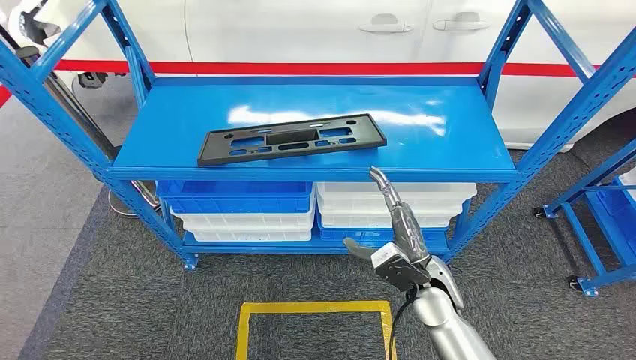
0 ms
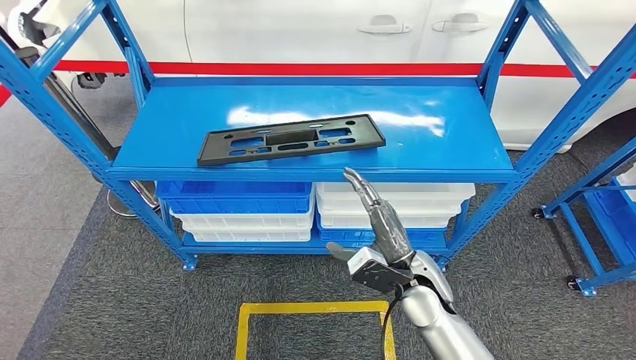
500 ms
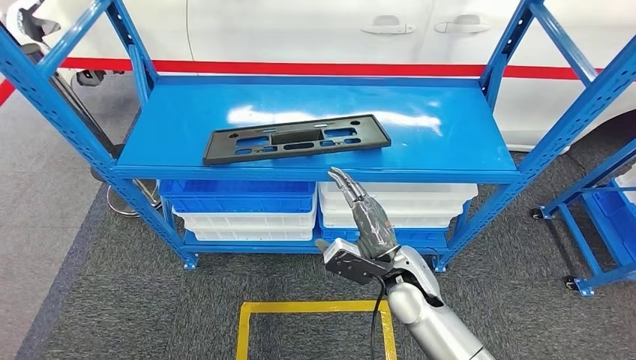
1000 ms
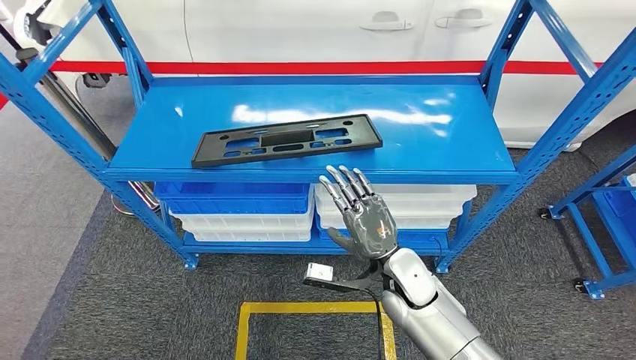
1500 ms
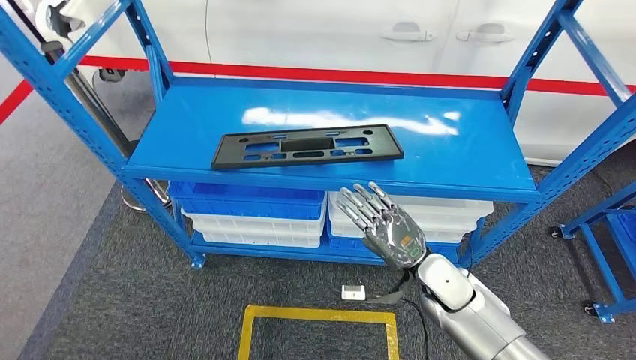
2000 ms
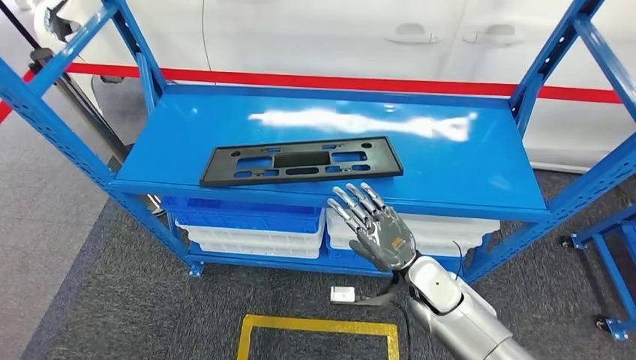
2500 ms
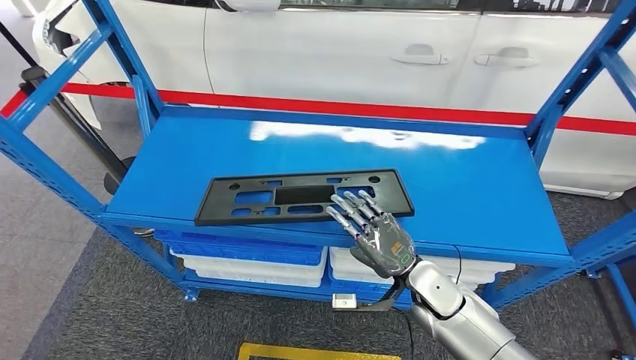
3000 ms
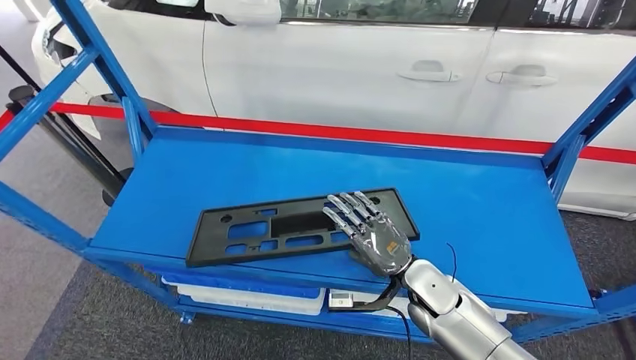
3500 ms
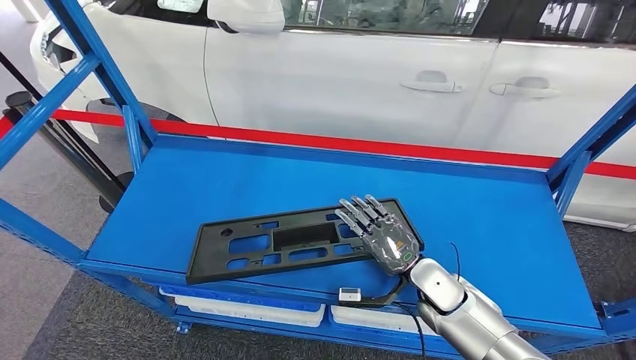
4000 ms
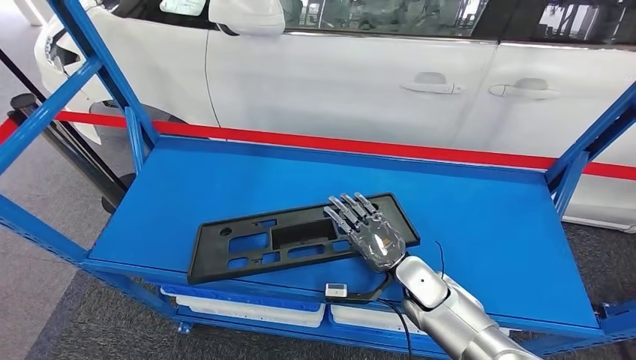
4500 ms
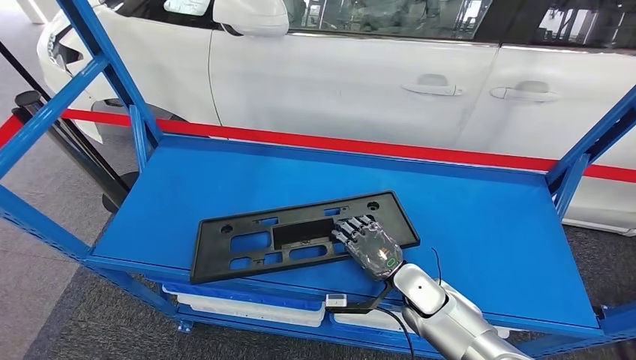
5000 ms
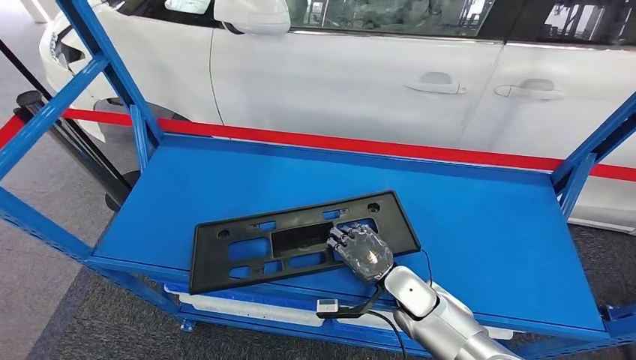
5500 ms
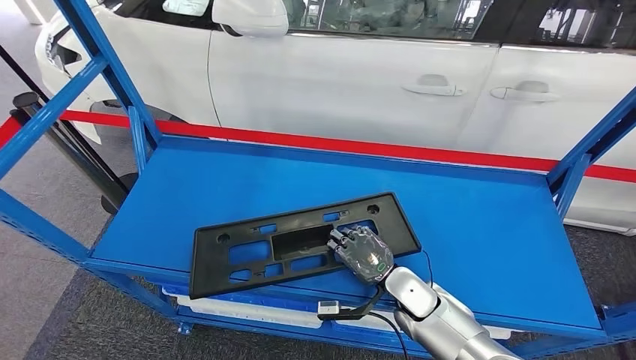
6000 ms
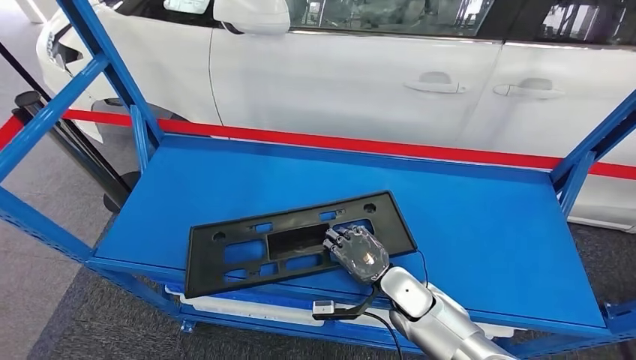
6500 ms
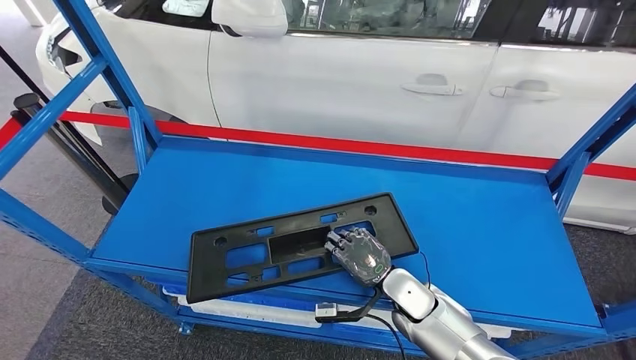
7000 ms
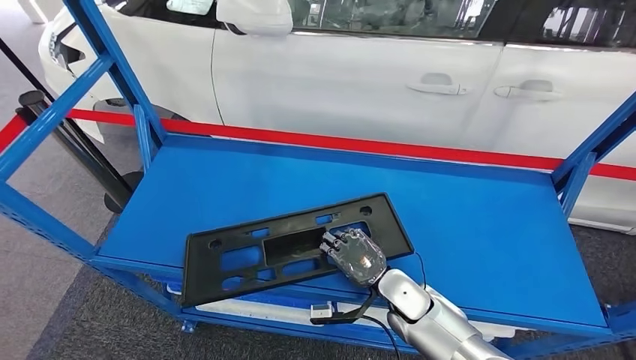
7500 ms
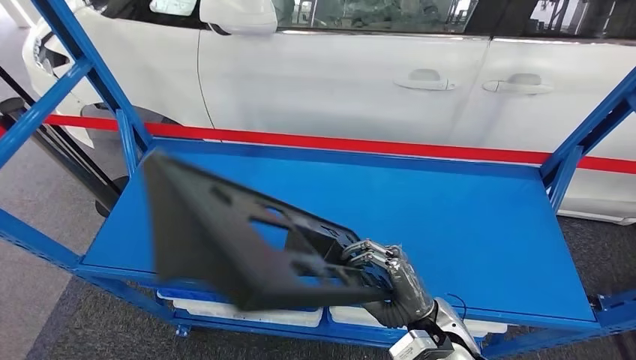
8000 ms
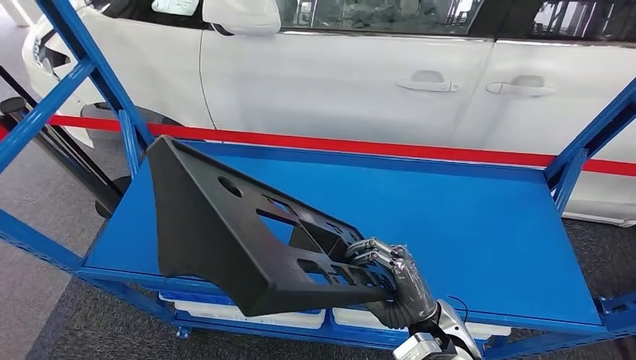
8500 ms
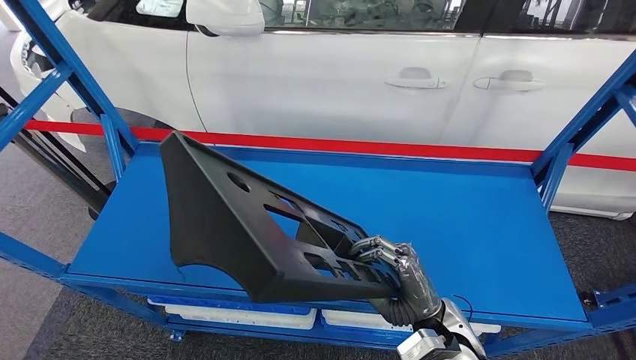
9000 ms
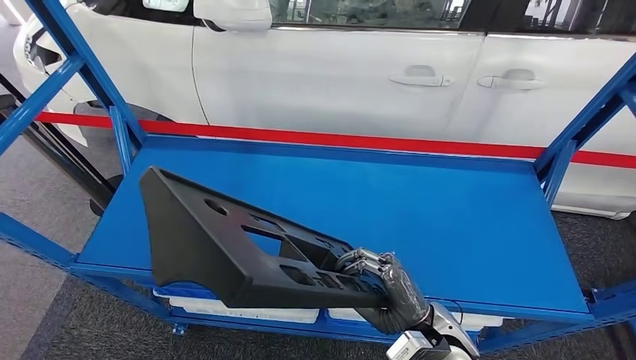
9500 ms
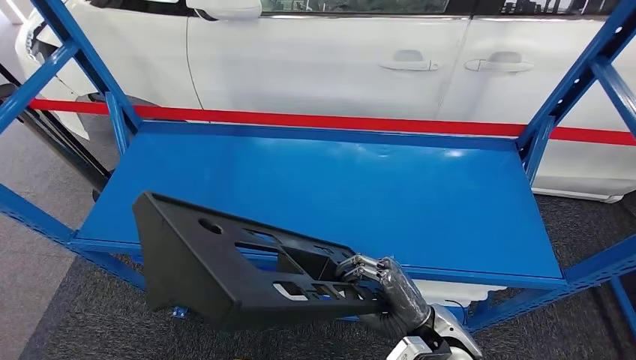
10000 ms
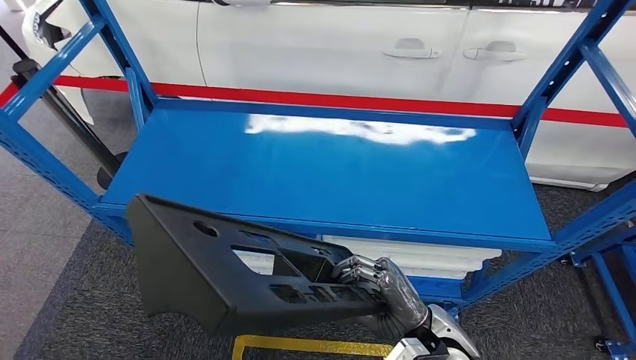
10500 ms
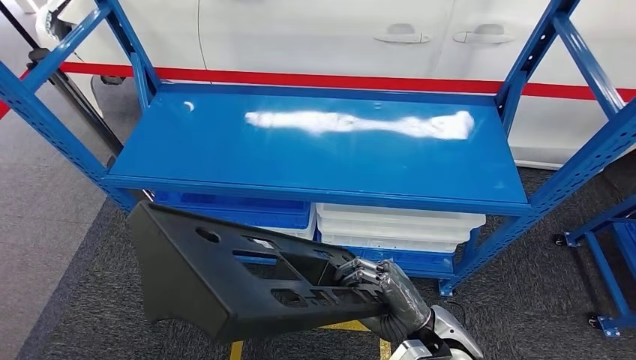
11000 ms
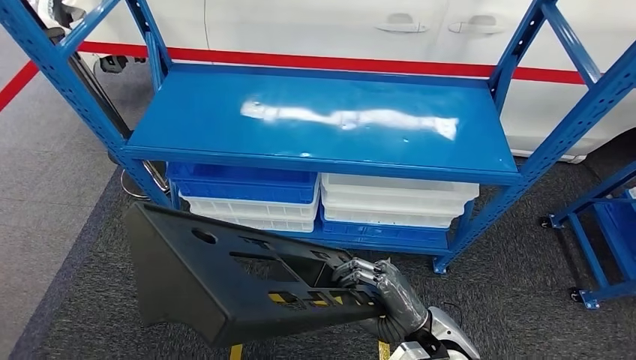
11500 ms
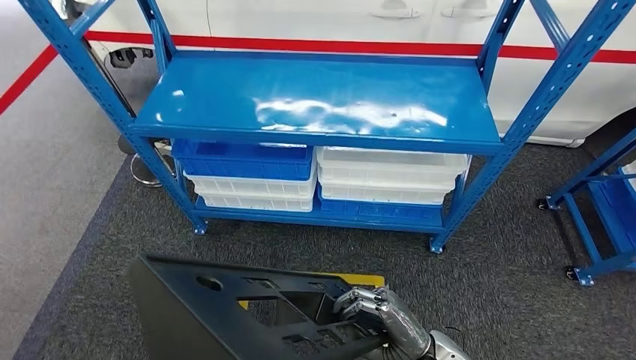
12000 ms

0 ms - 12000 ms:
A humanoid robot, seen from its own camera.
Step, 0 ms - 9000 ms: Pick up the large material from the shelf.
4000 ms - 6000 ms: The right hand moves some 5 cm.

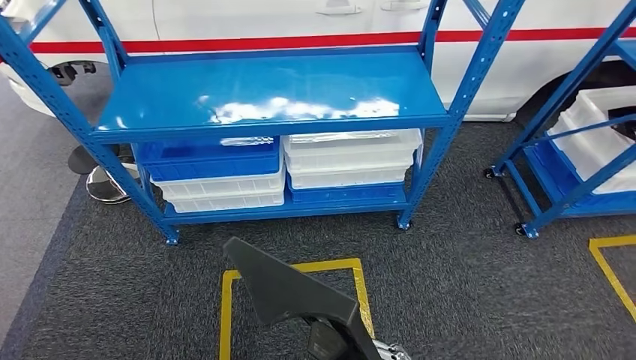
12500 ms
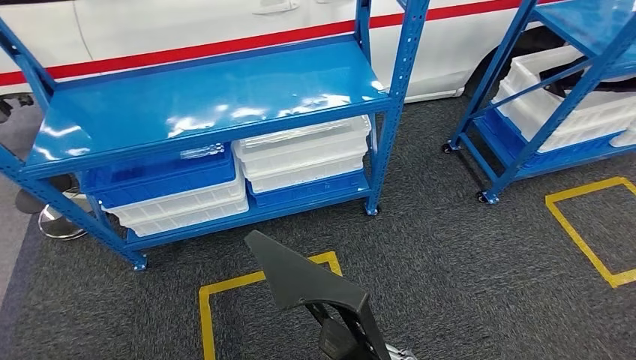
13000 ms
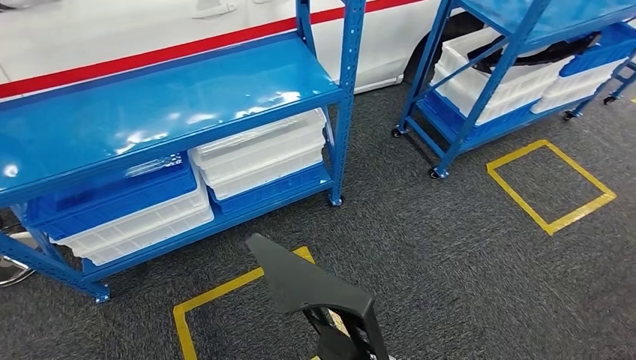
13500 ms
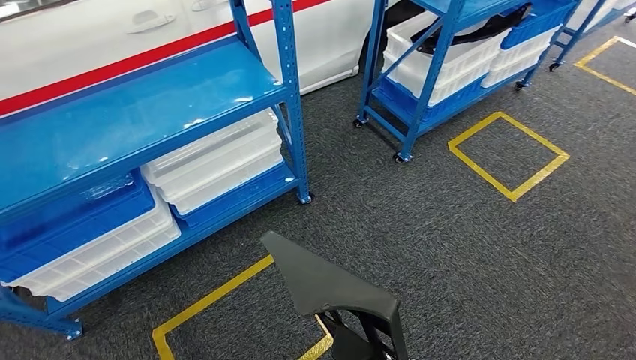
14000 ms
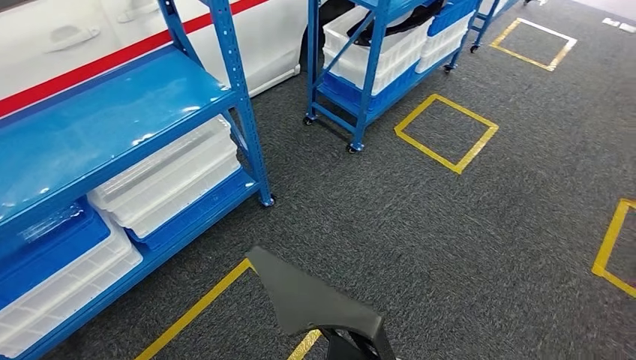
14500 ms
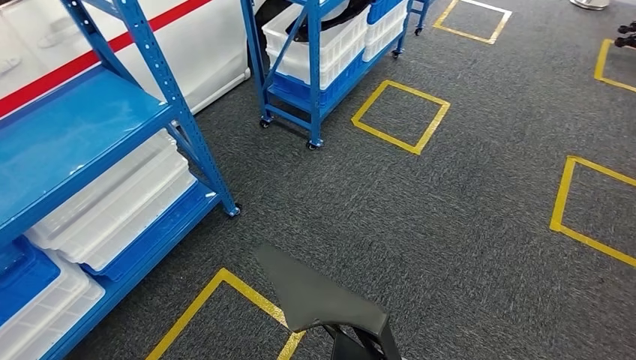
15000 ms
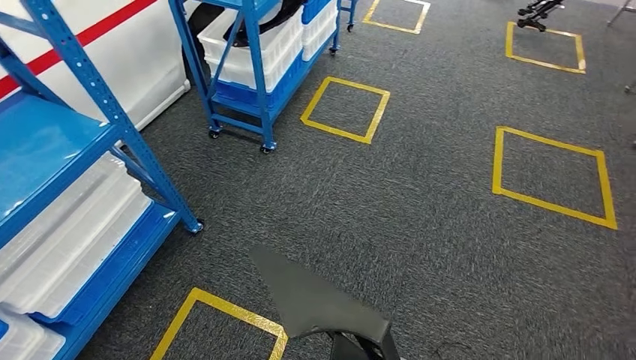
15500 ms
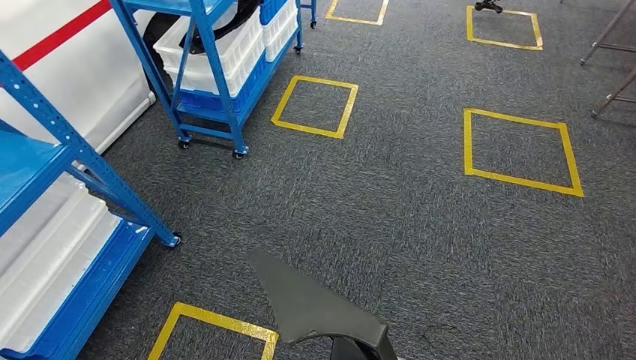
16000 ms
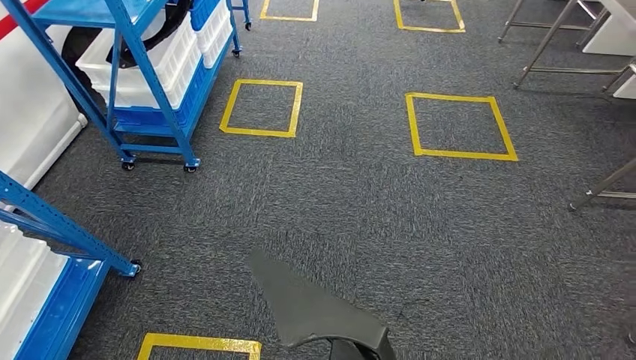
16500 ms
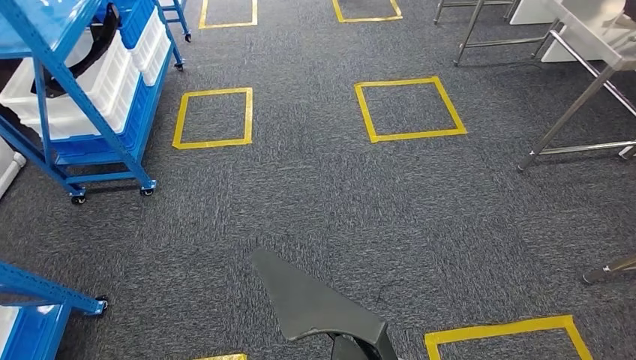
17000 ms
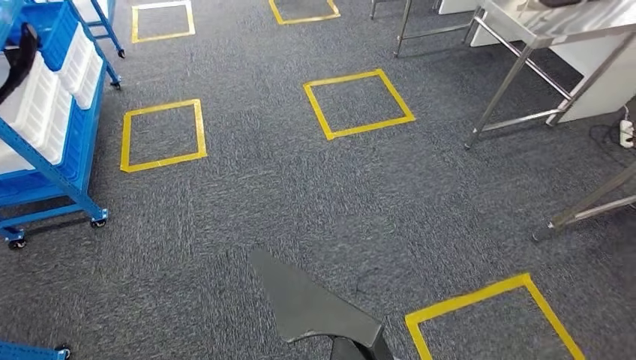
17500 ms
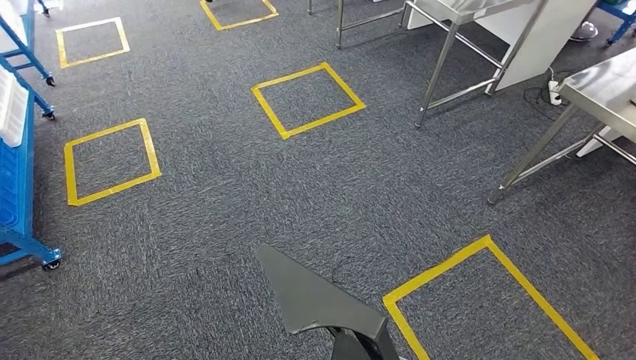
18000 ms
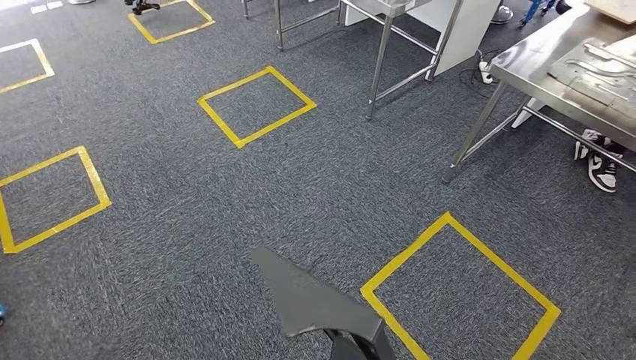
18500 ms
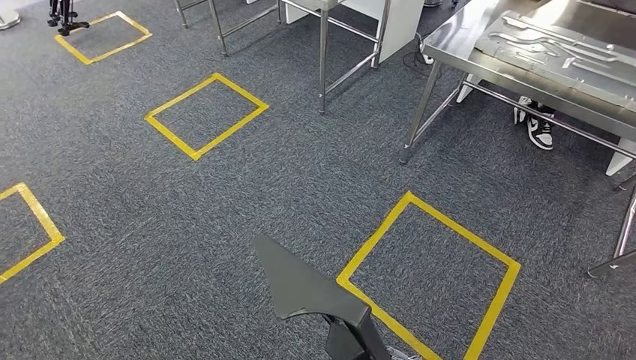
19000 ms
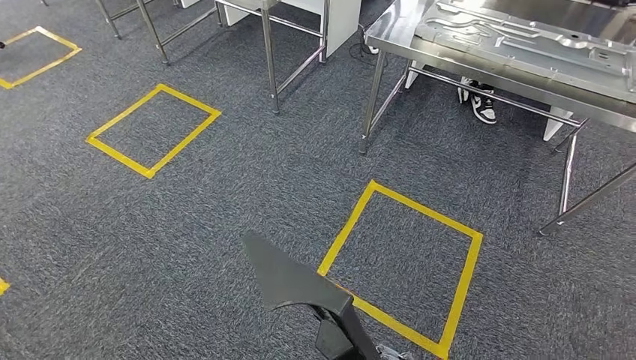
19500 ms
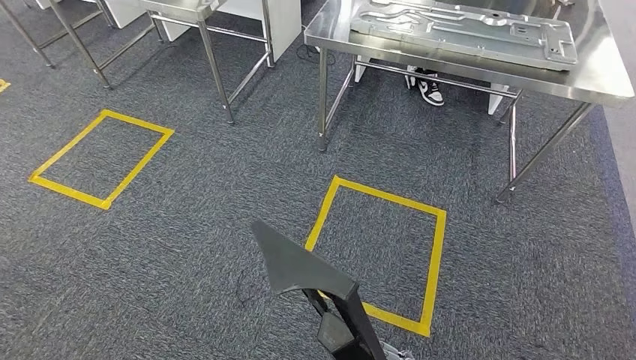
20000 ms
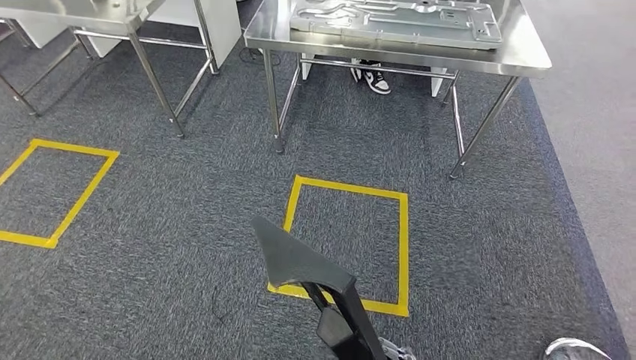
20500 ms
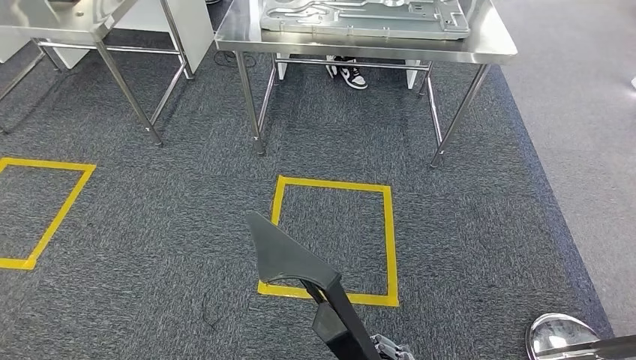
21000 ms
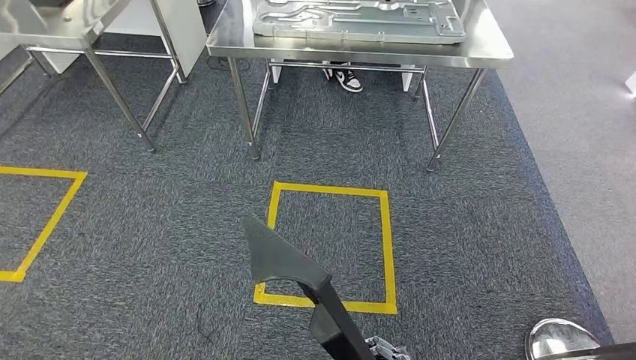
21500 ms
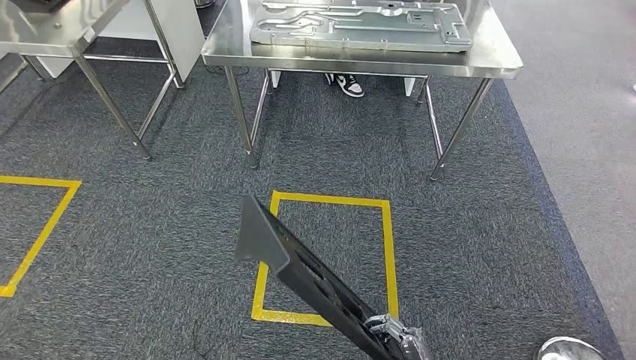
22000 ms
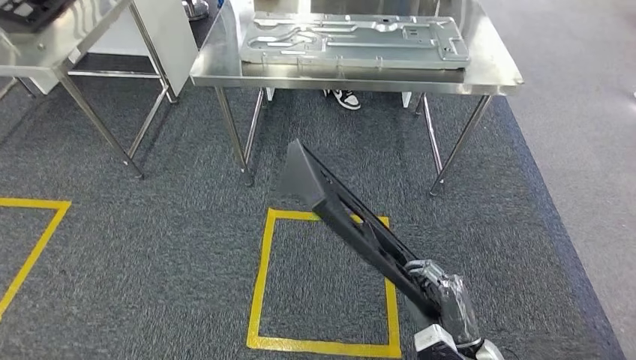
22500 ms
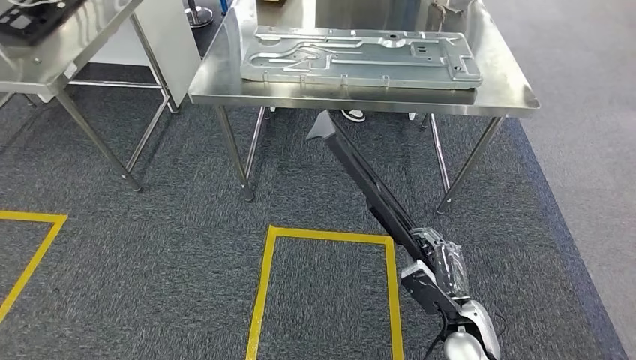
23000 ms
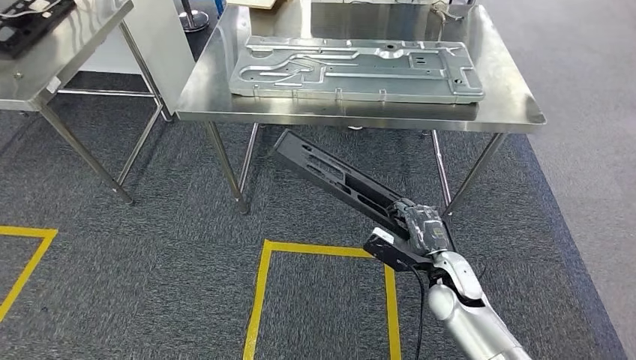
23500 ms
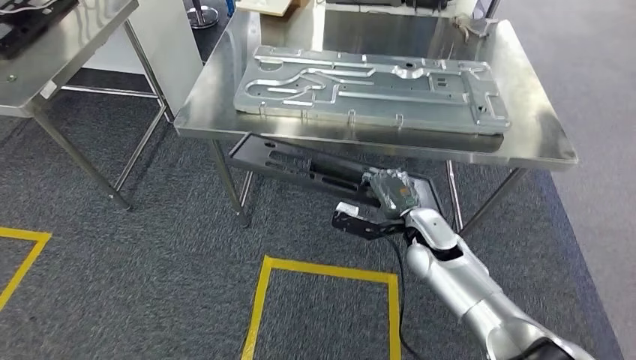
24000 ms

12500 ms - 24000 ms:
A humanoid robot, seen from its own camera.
Step, 12500 ms - 23500 ms: Move the large material to the workbench.
